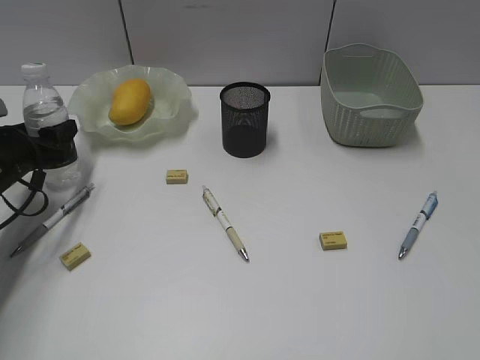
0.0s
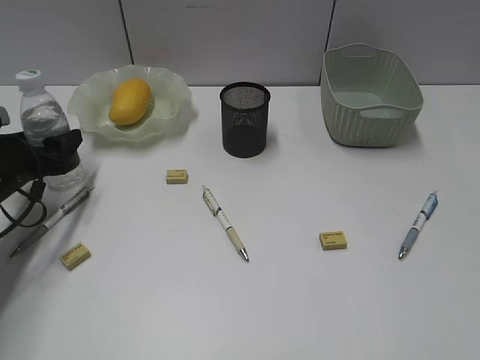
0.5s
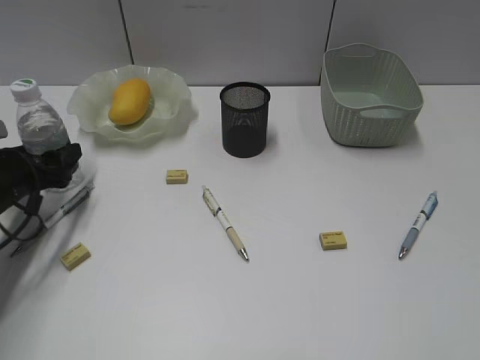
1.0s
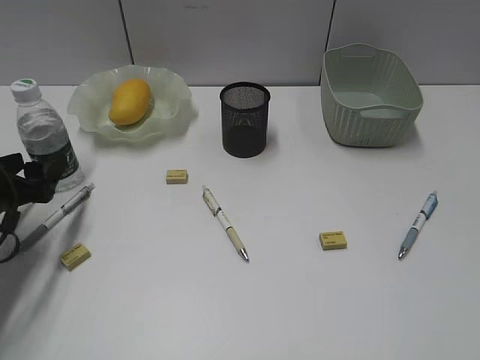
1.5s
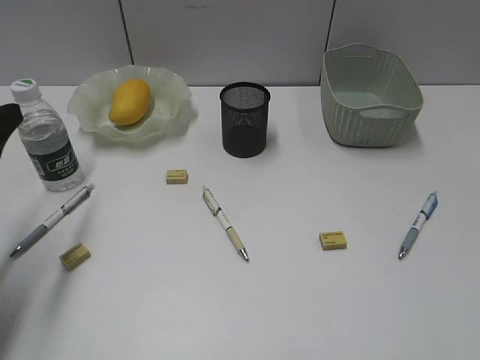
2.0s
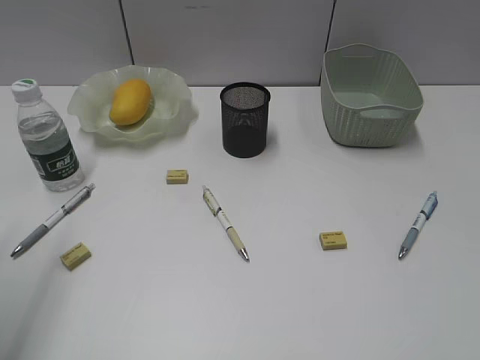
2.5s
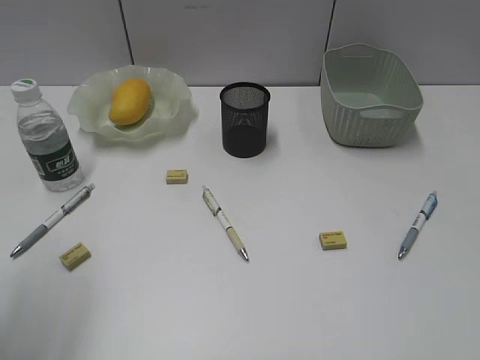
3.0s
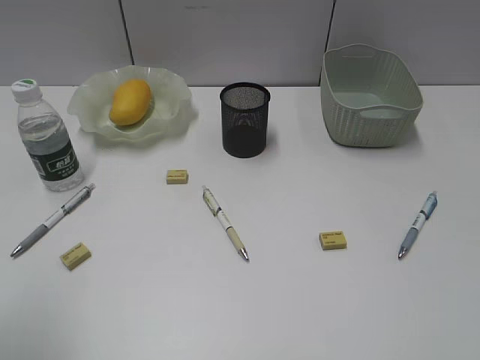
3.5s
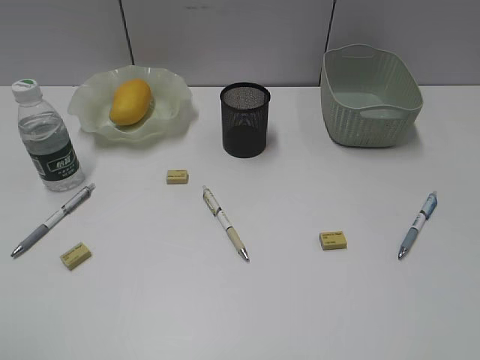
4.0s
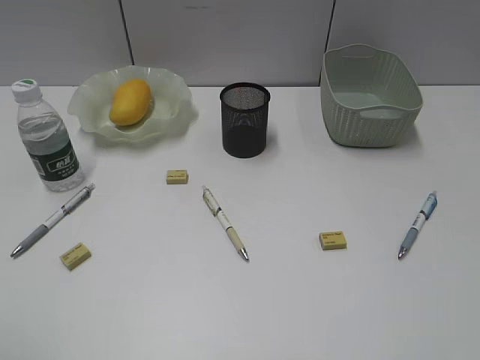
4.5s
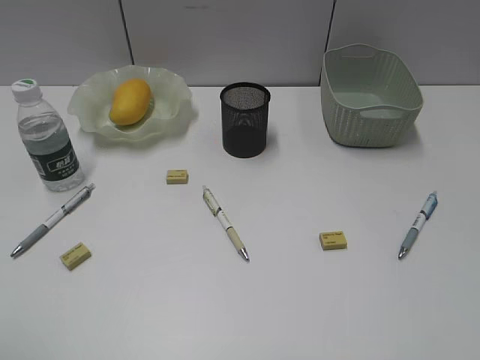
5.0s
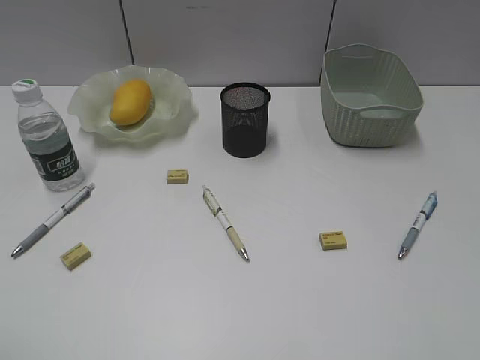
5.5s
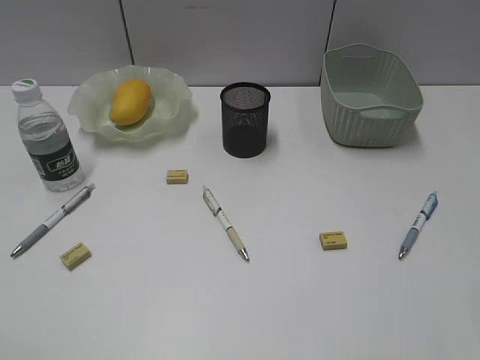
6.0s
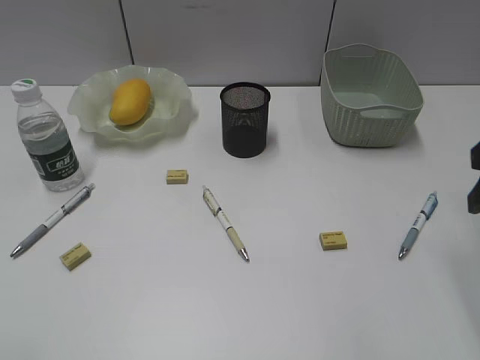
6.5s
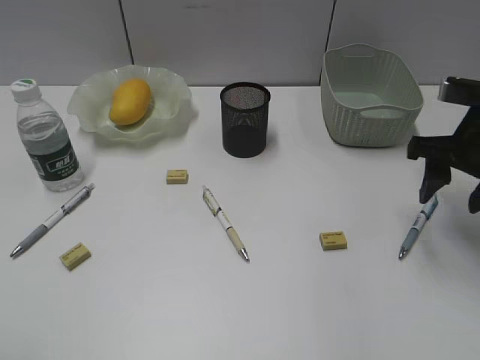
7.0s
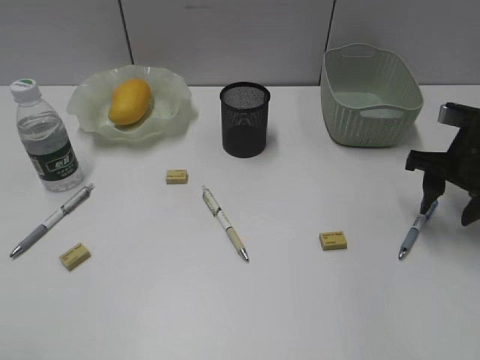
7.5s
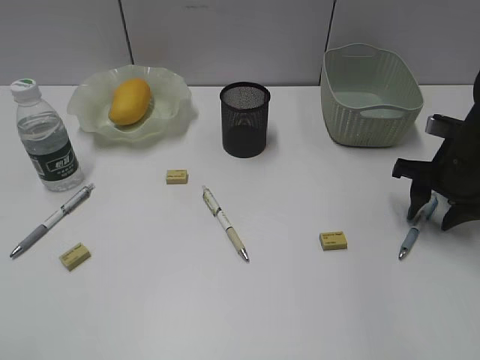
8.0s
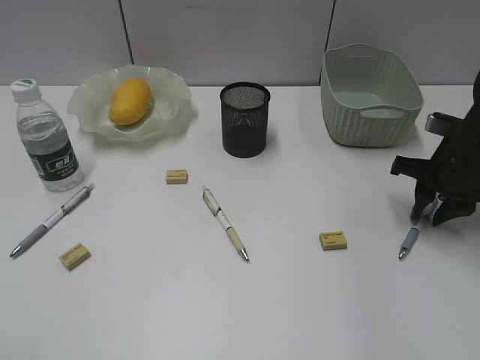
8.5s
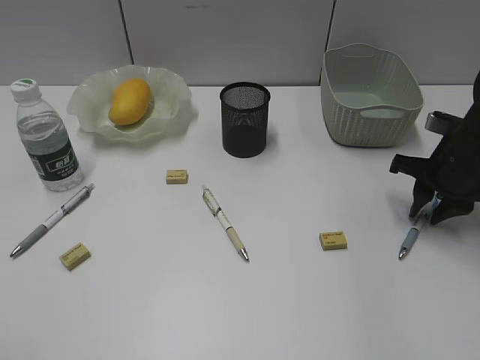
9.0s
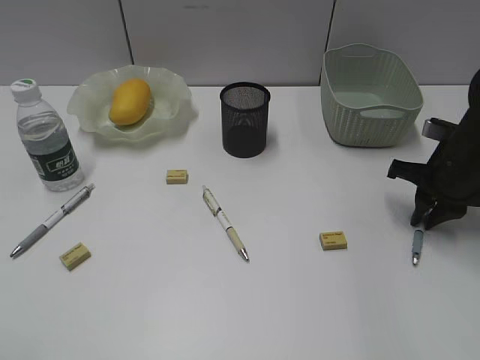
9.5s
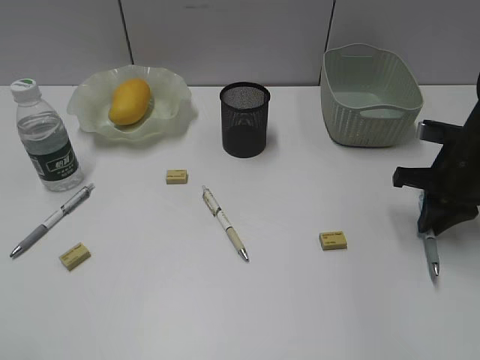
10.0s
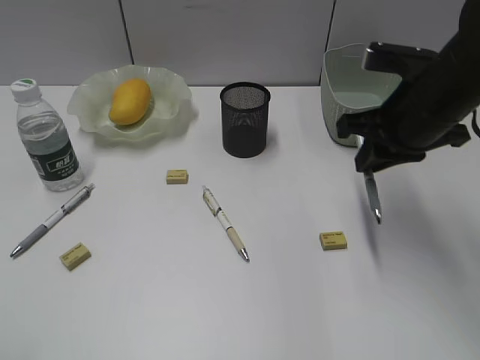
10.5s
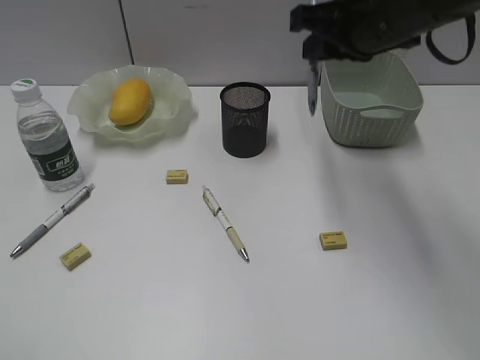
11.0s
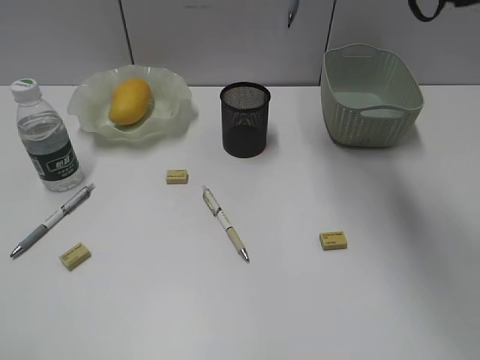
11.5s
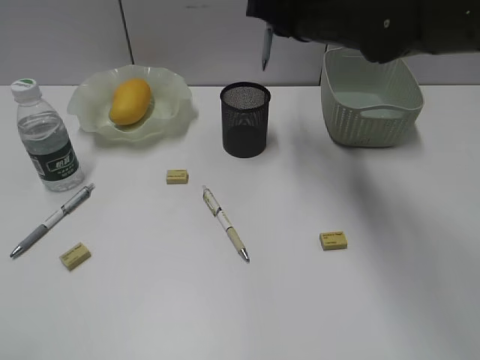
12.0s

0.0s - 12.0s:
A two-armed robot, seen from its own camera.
Step, 2.0s - 9.5s: Grasp the blue pen with right gripper.
0.0s - 2.0s: The left gripper heads backward and upward, covering roughly 15 cm.
2.0s - 4.0s: The left gripper travels backward and upward by roughly 25 cm.
6.0s - 8.0s: The right gripper shifts some 30 cm forward and downward.
8.0s - 10.0s: The right gripper closes up.
10.0s - 12.0s: The right gripper moves to the left and upward, roughly 20 cm.

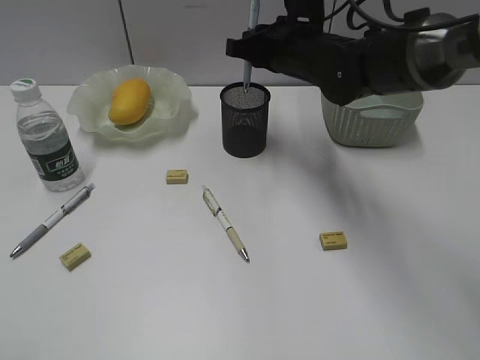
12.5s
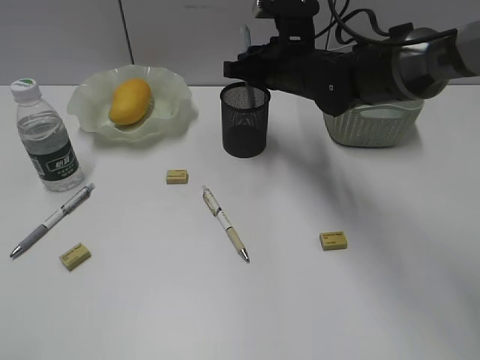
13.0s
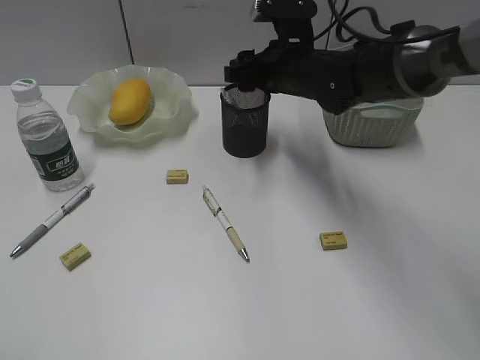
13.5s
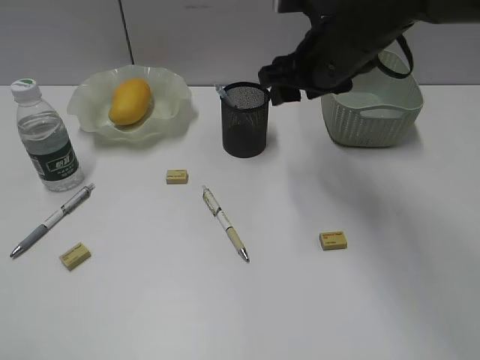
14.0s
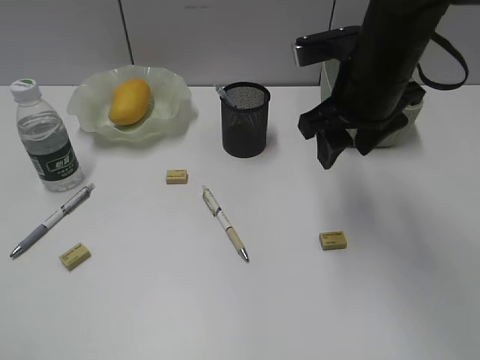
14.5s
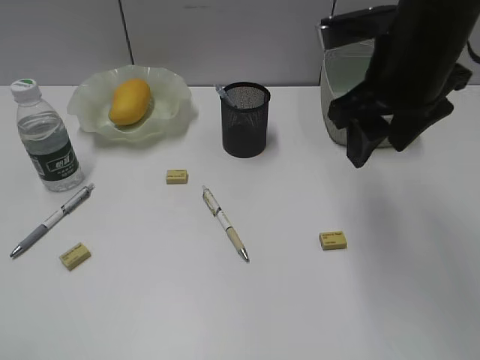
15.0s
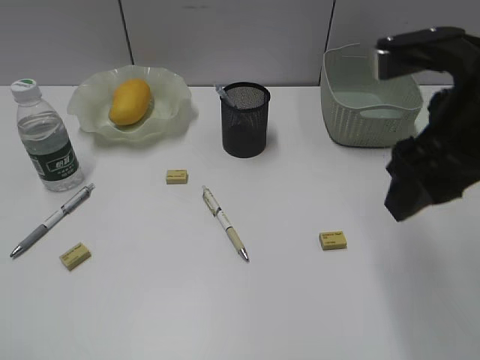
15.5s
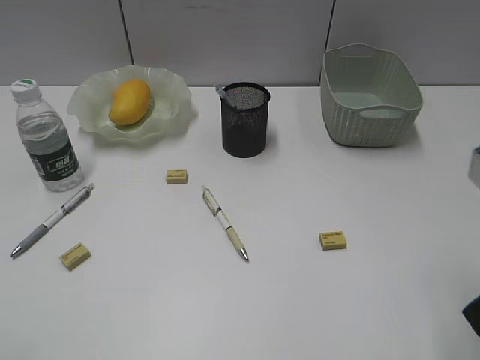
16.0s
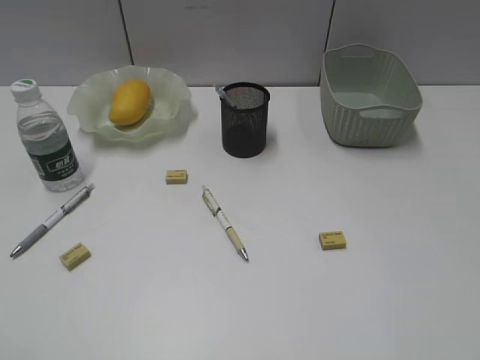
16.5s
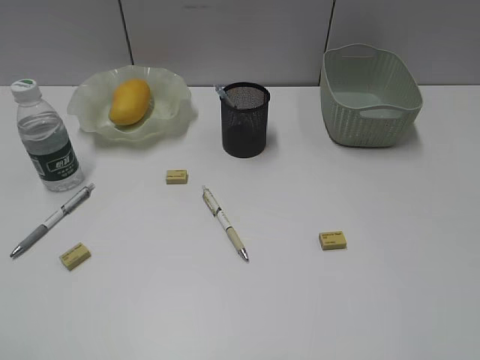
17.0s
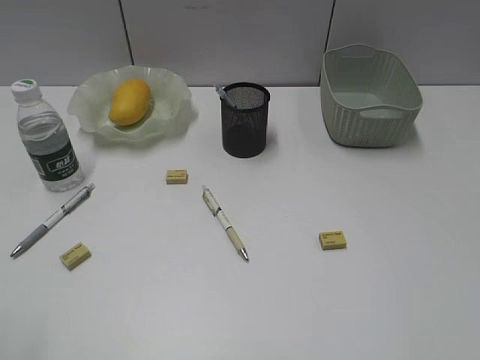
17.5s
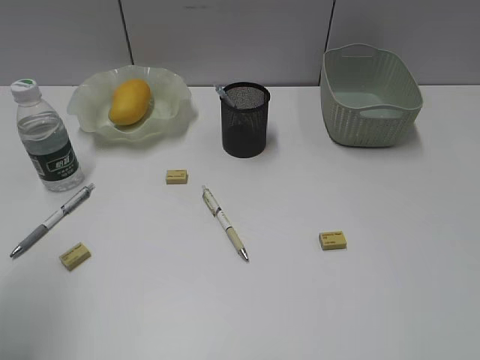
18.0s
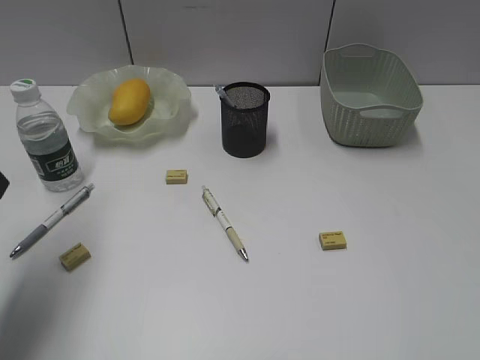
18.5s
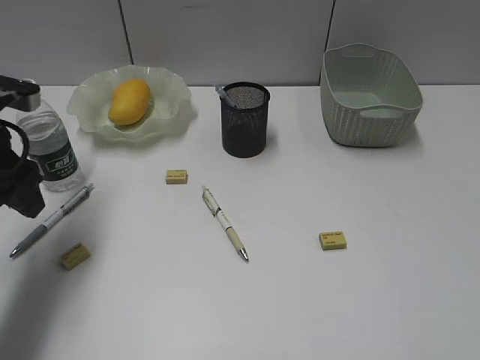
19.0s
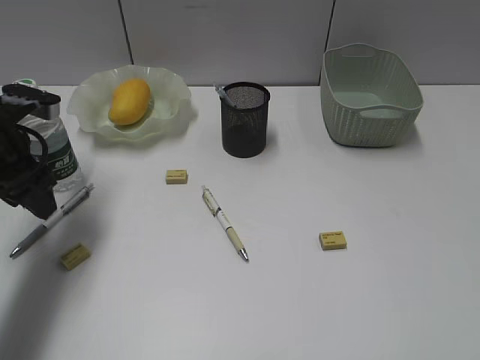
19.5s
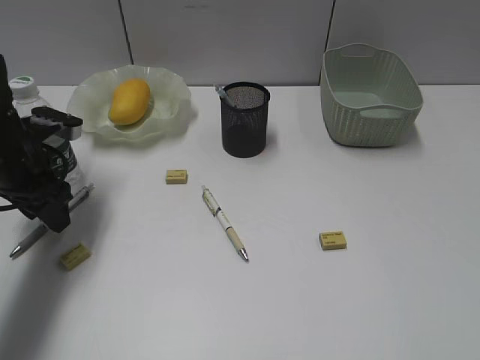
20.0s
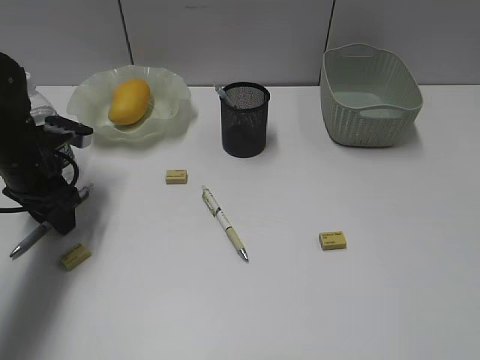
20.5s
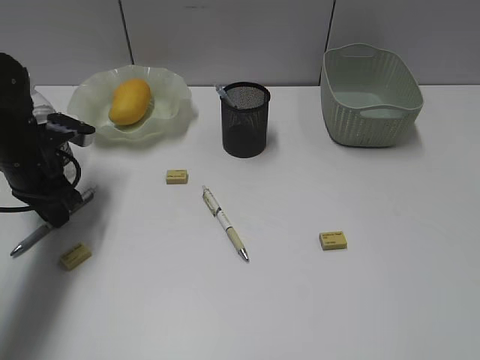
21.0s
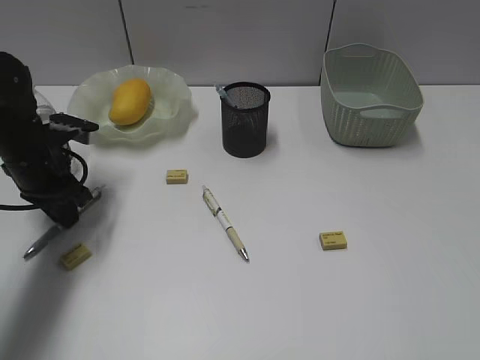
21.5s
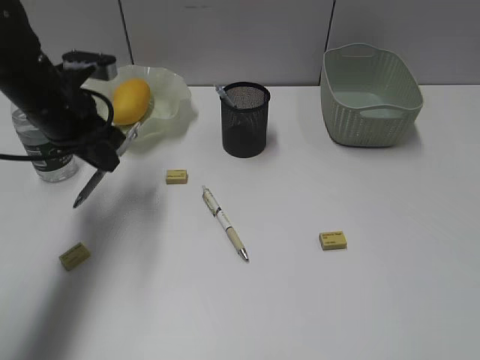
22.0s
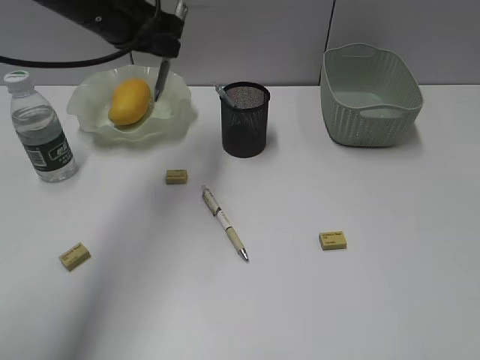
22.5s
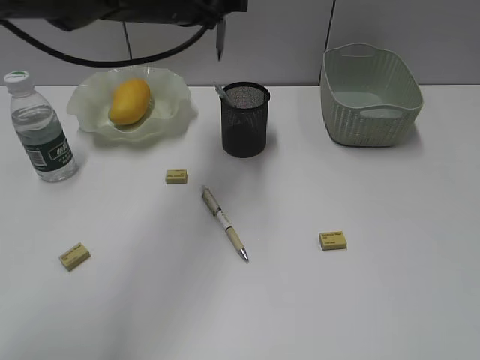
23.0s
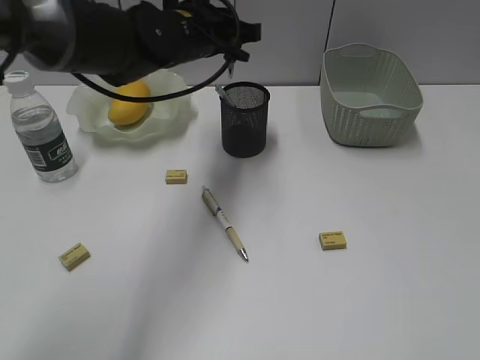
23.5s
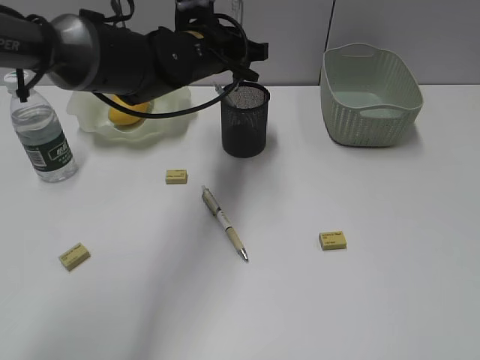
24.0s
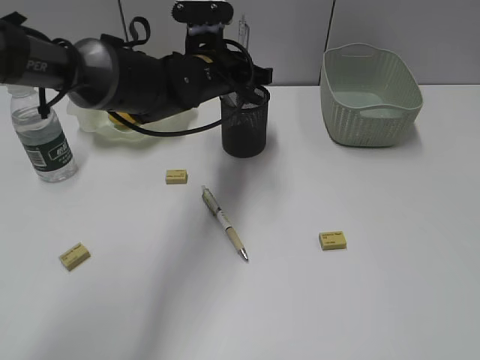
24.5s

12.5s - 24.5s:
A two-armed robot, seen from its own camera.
Step, 13.5s - 21.0s: Grasp the gray pen with left gripper.
12.5s - 14.5s: The right gripper is displaced backward by about 10 cm, and opens its fingers.
14.5s - 16.5s: The right gripper heads backward and to the right, covering approximately 30 cm.
16.5s - 18.5s: The left gripper is displaced forward by some 20 cm.
18.5s - 20.5s: The left gripper heads downward and forward, covering some 20 cm.
20.5s - 22.5s: The left gripper goes roughly 20 cm upward and to the right, and closes its fingers.
22.5s - 24.5s: The left gripper moves to the right and downward, roughly 15 cm.

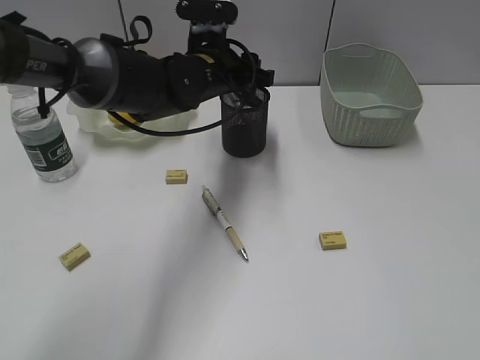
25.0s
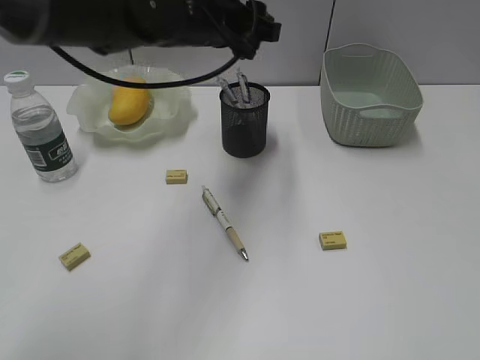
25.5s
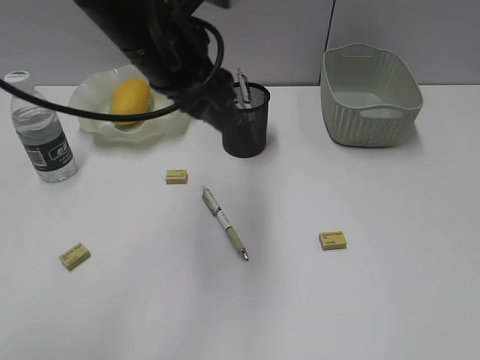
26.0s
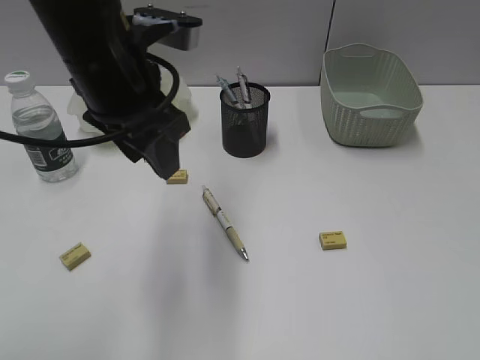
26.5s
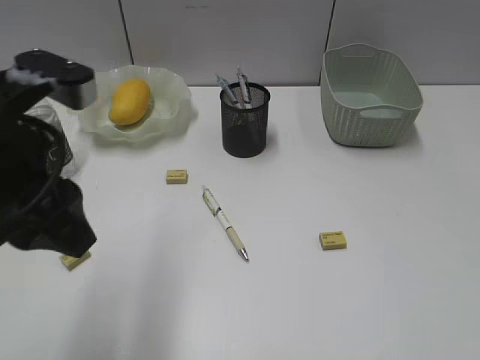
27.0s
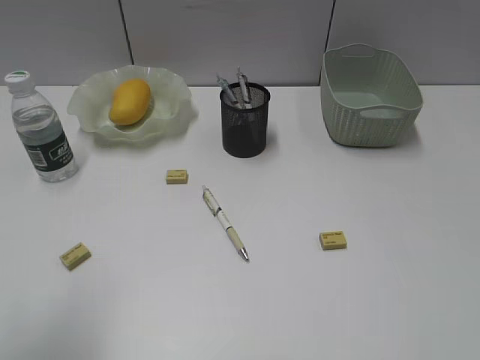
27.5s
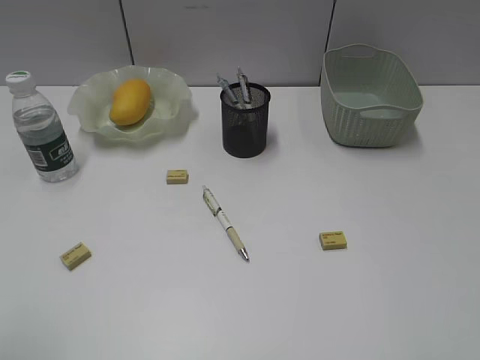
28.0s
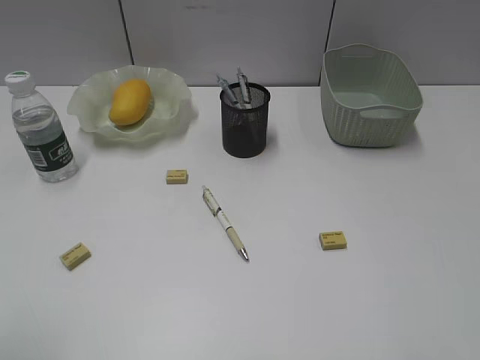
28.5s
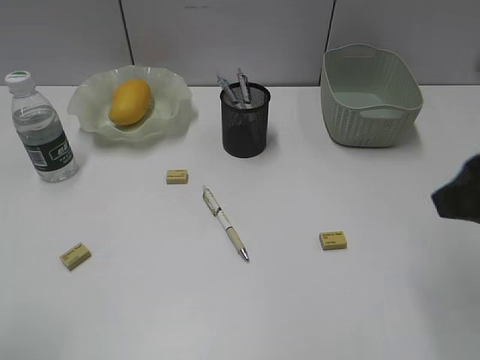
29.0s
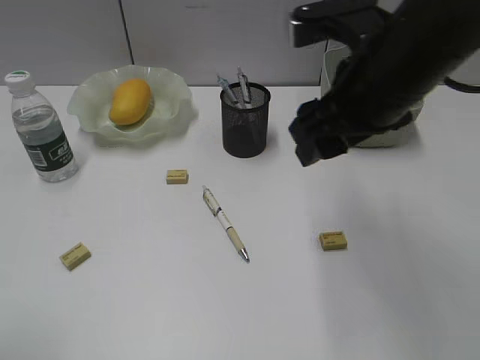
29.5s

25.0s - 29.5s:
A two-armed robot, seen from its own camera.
25.0s - 27.0s: The left gripper goes some 25 cm backward, to the left and upward.
27.0s - 29.5s: The left gripper heads backward and to the left, covering roughly 20 cm; the right gripper travels forward and to the left by approximately 30 cm.
